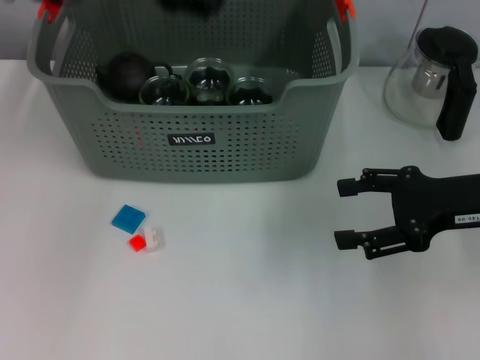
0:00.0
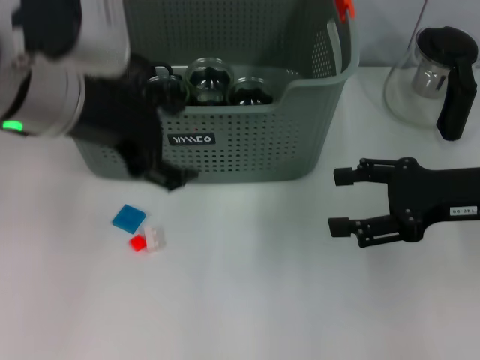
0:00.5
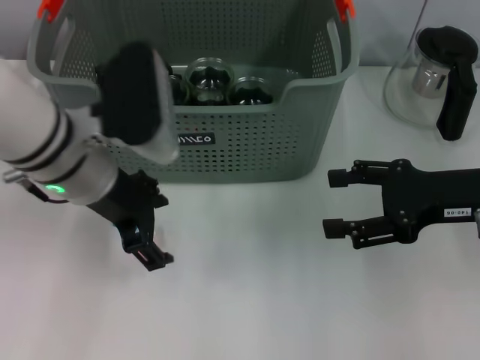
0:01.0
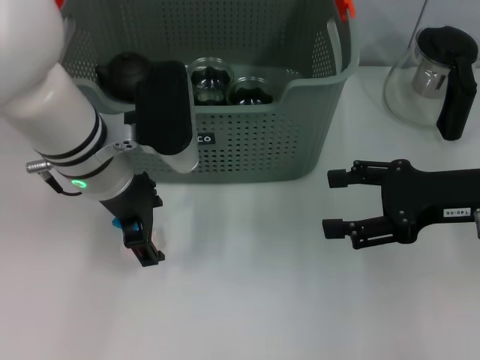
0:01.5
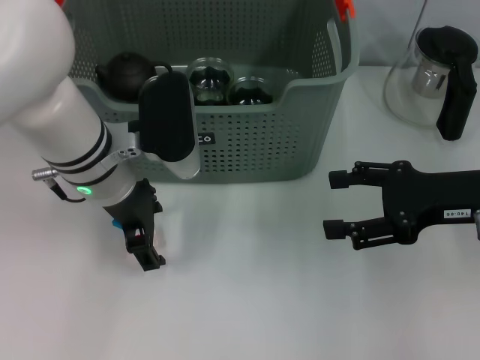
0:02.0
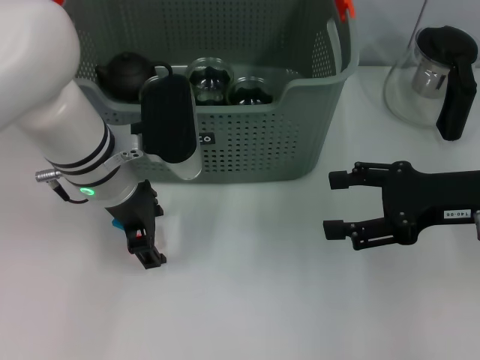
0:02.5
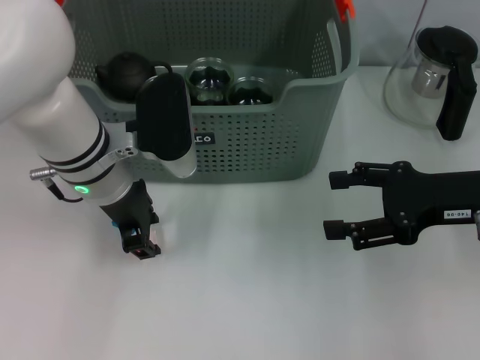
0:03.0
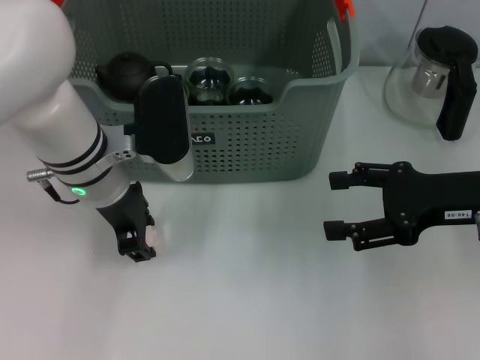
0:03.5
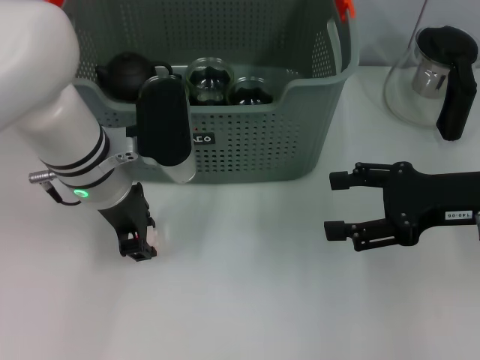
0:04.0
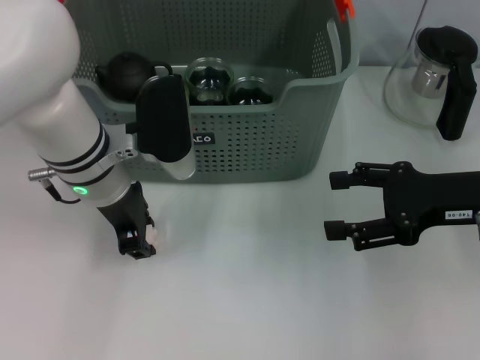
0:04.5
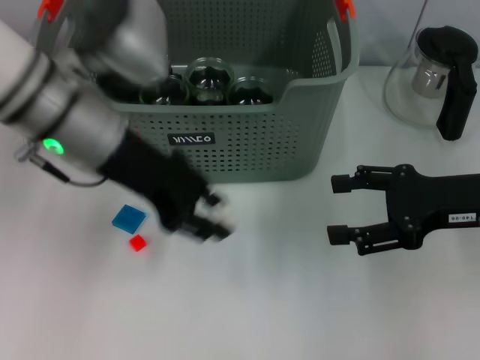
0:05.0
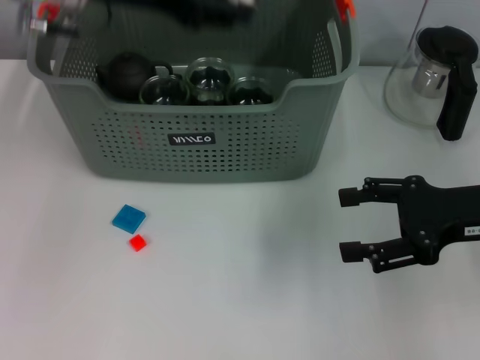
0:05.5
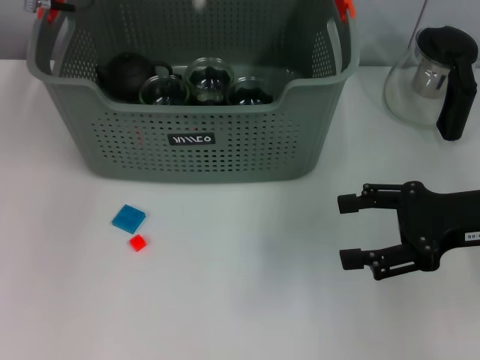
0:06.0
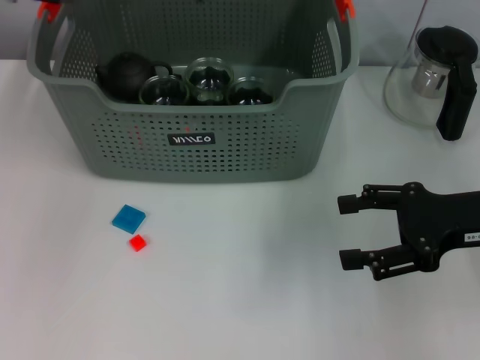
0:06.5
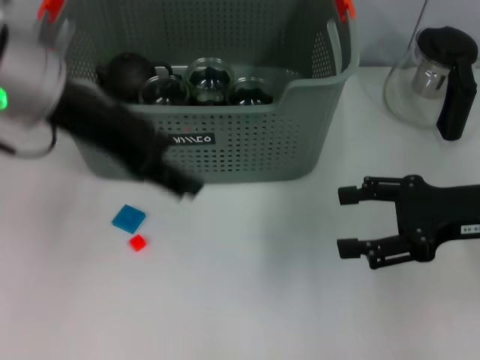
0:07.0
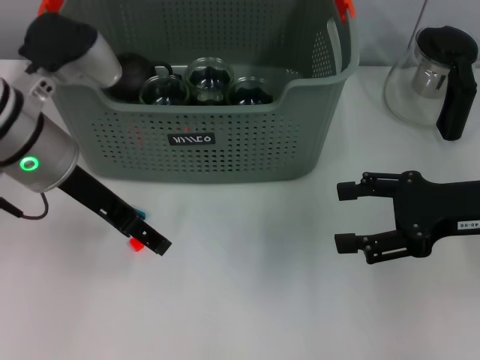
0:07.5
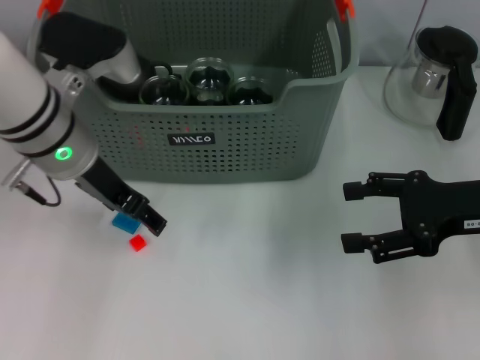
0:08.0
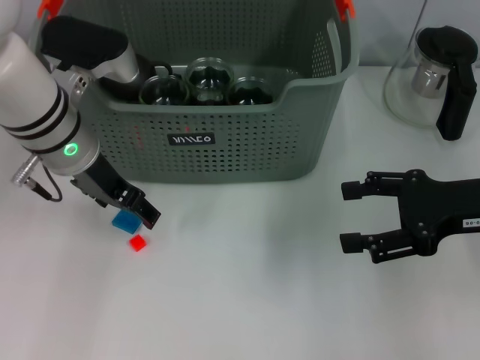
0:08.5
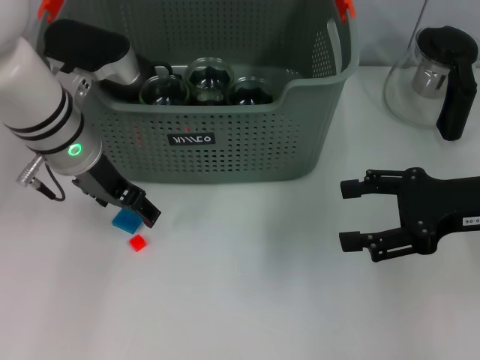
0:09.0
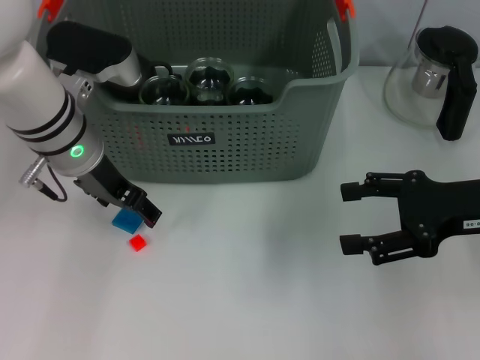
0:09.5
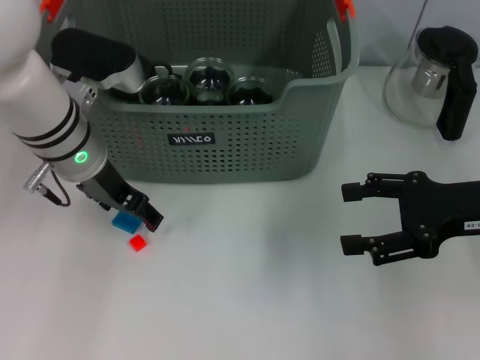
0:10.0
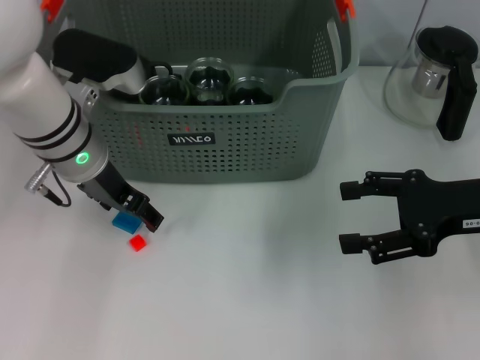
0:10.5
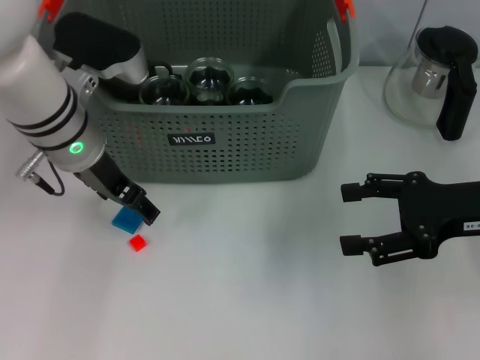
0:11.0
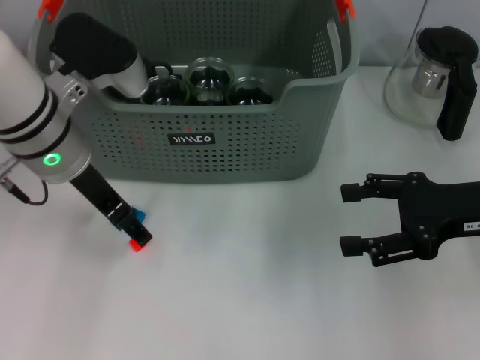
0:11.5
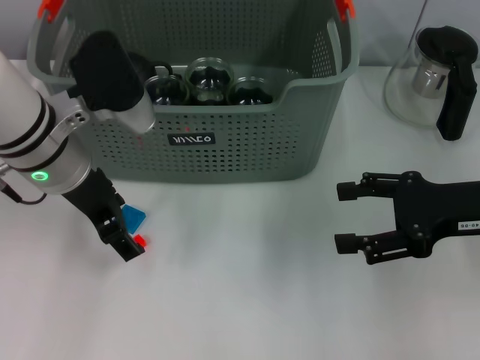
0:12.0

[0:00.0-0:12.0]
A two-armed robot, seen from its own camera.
Task of the whole recording: pick up the teacup on the table and place it into the storage bin, pick up the block on the table and place it into the storage bin.
Step, 0:00.0 to 0:04.0: Grasp the white block with left gripper.
Step, 0:04.5 to 0:06.0: Place the white block in the storage box with left gripper.
0:00.0 to 0:02.0: The left gripper heads downward, covering roughly 15 cm, and opens its fingers.
0:02.0 to 0:04.0: The left gripper closes up.
0:04.0 to 0:06.0: The left gripper heads upward and forward, covering about 15 cm.
0:06.0 to 0:08.0: The left gripper shifts some 15 cm backward and downward, and opens.
0:08.0 to 0:10.0: The grippers stay close to where they were, moving slightly.

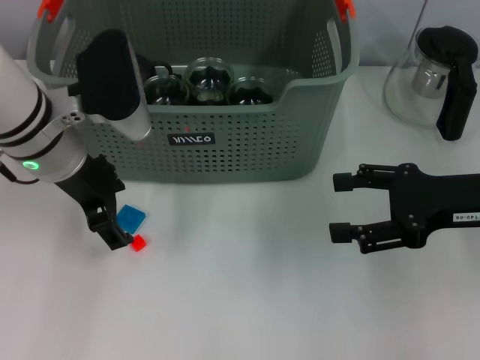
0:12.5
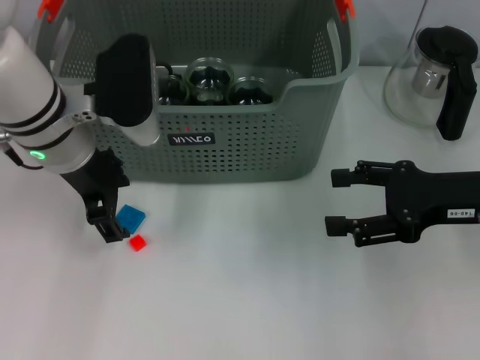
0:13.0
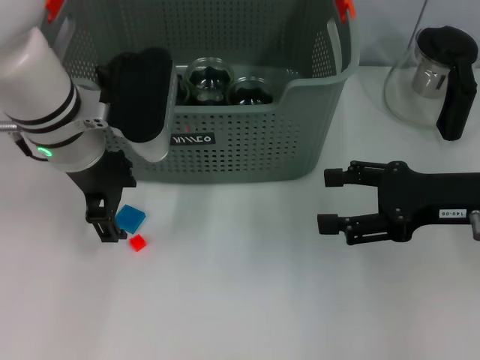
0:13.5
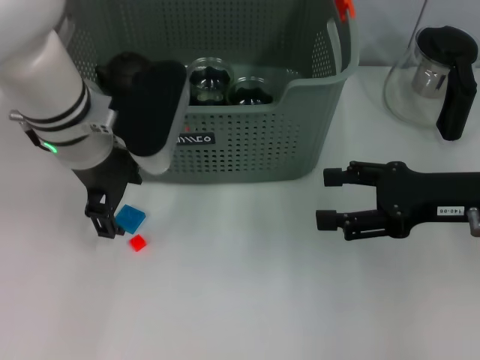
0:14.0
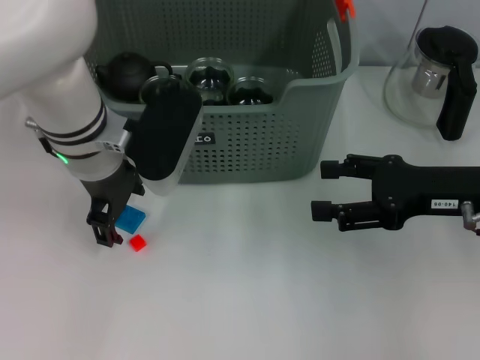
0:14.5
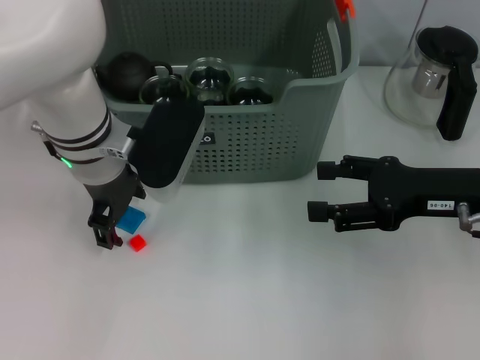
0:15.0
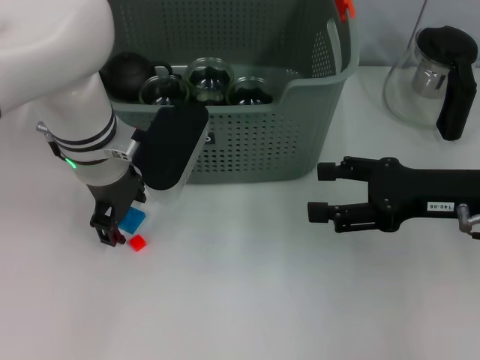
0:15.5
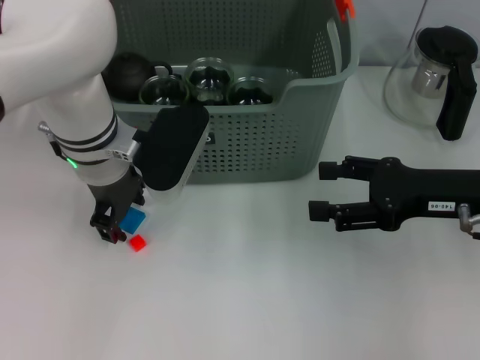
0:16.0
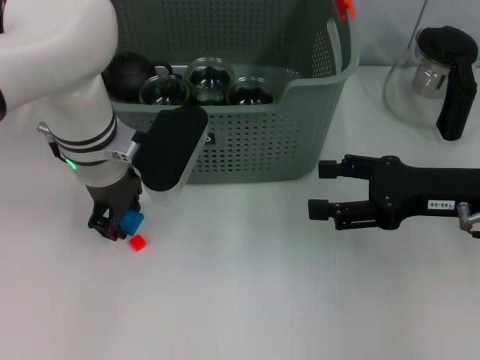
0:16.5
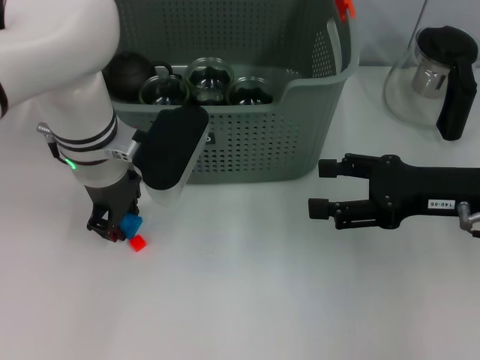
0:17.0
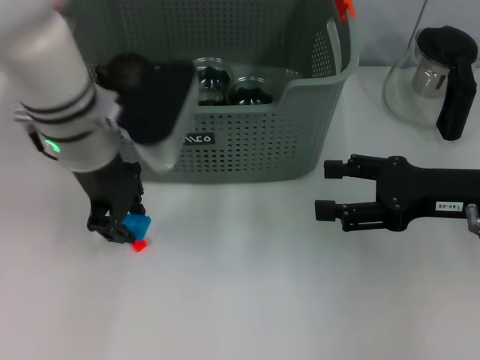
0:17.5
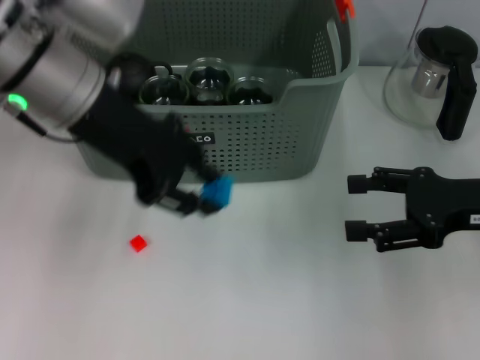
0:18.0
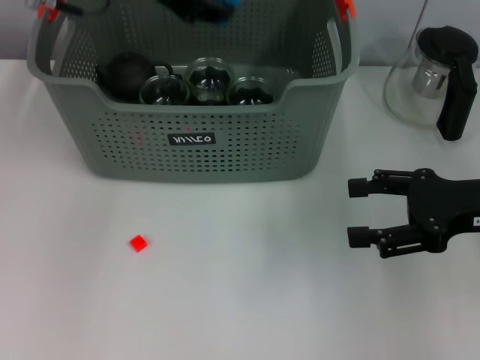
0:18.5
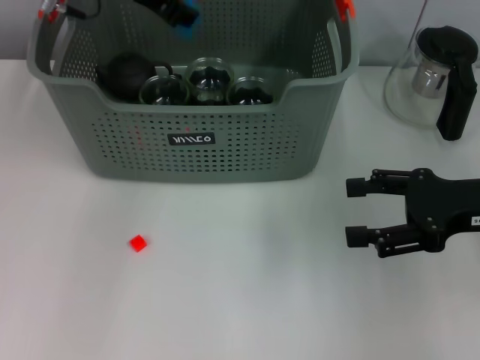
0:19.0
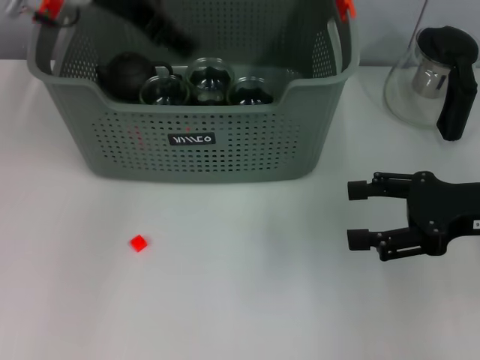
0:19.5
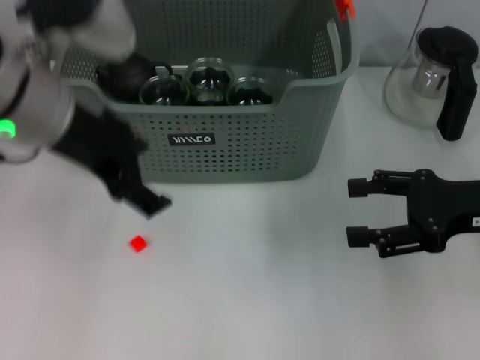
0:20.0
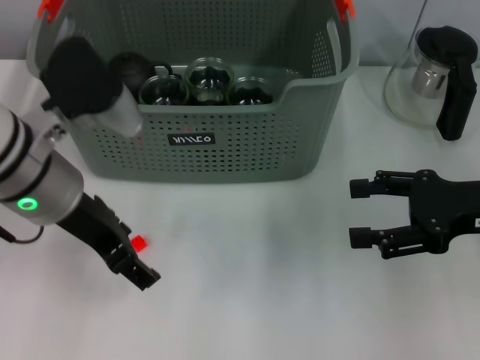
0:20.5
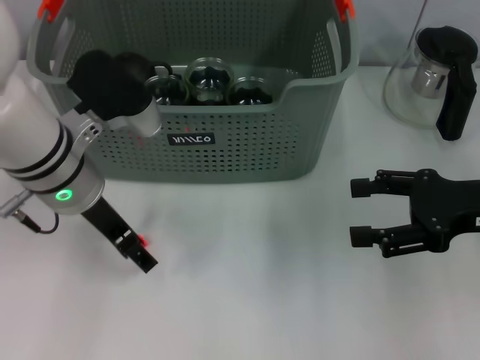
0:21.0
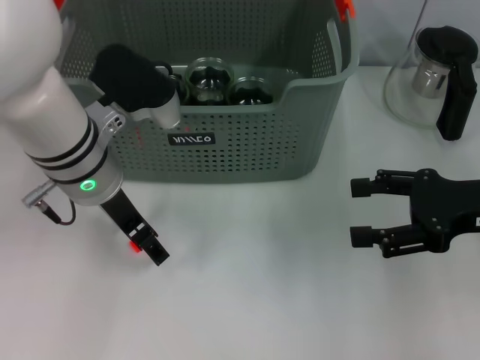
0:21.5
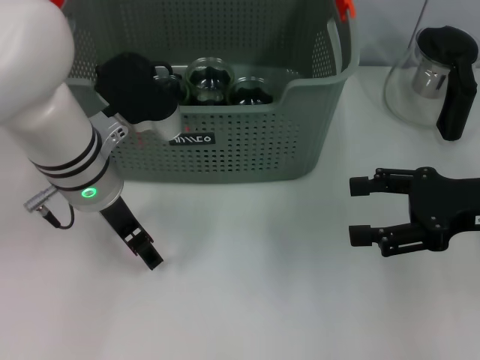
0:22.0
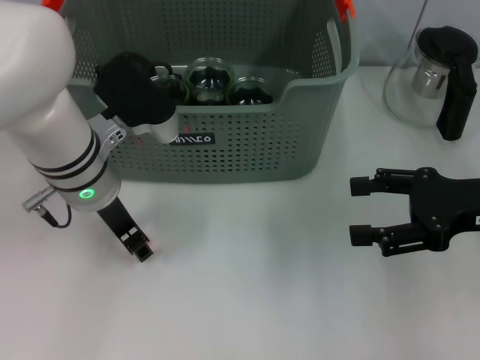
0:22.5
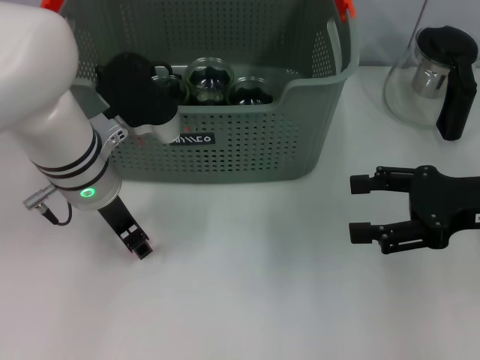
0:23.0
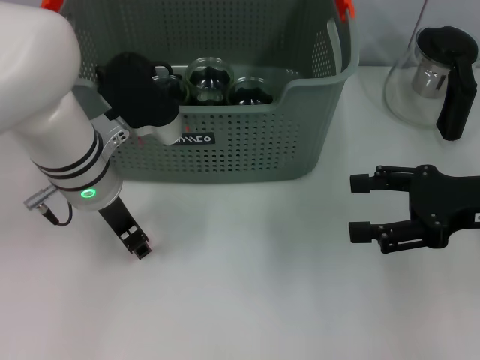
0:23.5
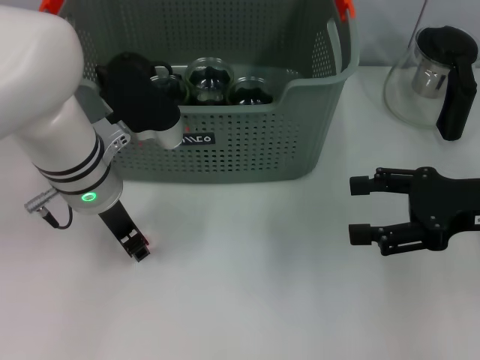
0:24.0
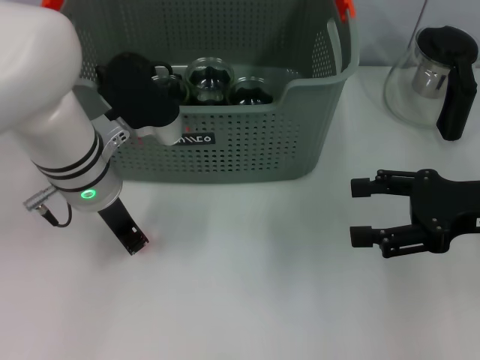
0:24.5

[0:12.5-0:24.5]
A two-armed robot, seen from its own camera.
Task of the whole recording: pick up the teacup on the table and place it into the storage bin, pick up the block on the table and place it into the storage bin.
Step, 0:12.5 to 0:16.5: Grasp the dark blue block with left gripper.
Step, 0:17.0 to 0:19.0: Place the dark blue block in the storage box with left gripper.
Step, 0:19.5 to 0:24.0: Grasp the orange block with left gripper.
0:14.5 to 0:16.5: The left gripper closes.
0:16.5 to 0:18.5: The left gripper travels upward by roughly 15 cm.
0:18.5 to 0:20.5: The left gripper travels backward and downward by about 15 cm, and opens up.
0:20.5 to 0:22.5: The left gripper heads downward, covering approximately 5 cm.
0:22.5 to 0:24.5: The left gripper closes up.

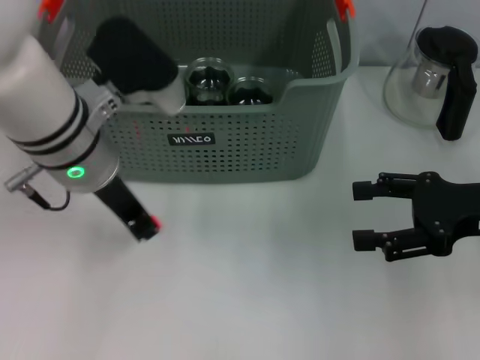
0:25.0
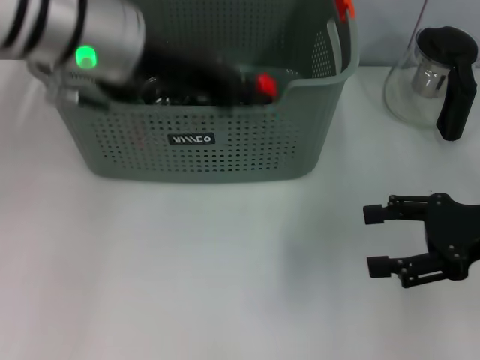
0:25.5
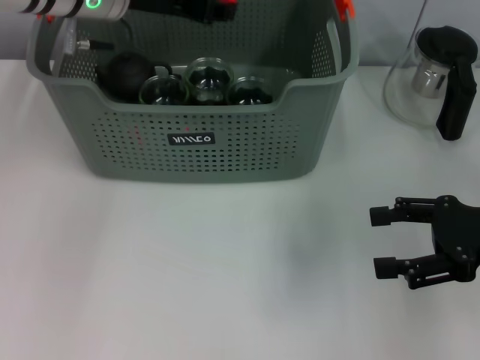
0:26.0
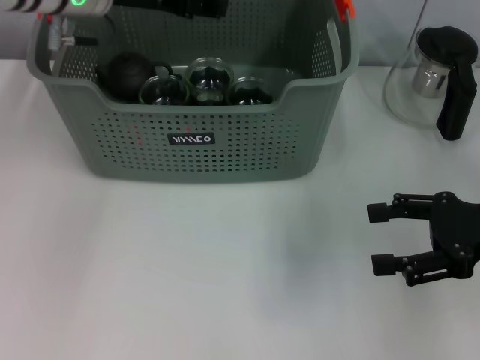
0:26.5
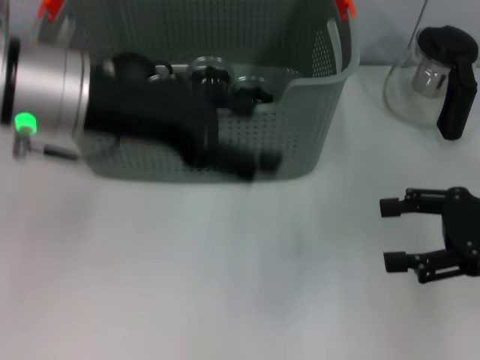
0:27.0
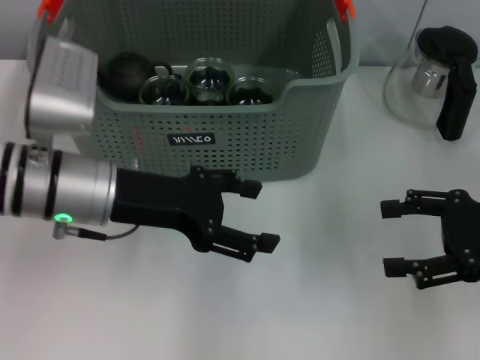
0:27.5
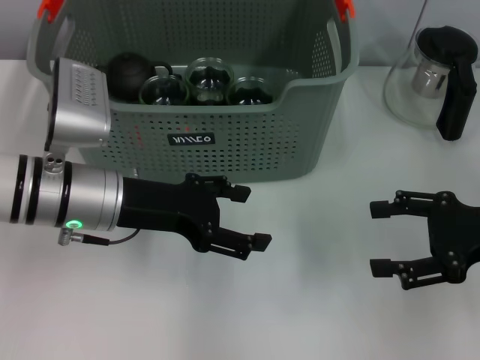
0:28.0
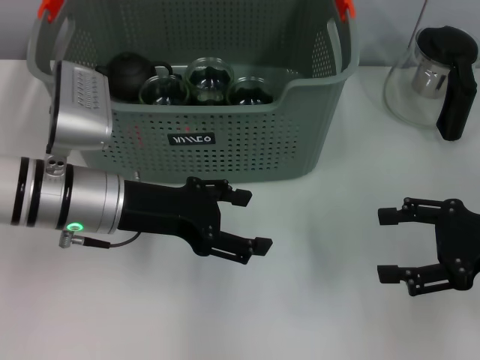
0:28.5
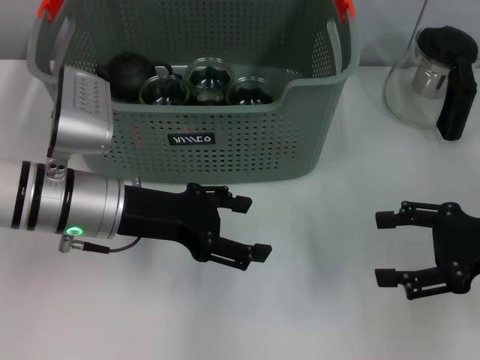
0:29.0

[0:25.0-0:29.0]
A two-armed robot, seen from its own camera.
Task of the whole recording: pick up the teacup on the table and place it into the storage bin, pick up the block on the table and place it into the storage bin.
Step, 0:25.0 to 0:26.0: Place the orange block in the storage box with left gripper.
0:25.0 to 0:27.0: The left gripper moves roughly 10 cm forward and comes back, and opens its fingers.
0:27.0 to 0:29.0: The left gripper travels downward by some 10 cm.
